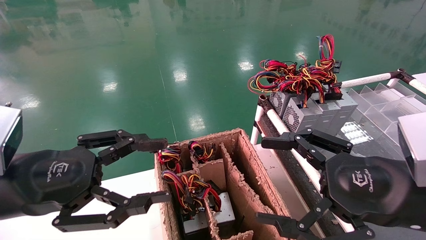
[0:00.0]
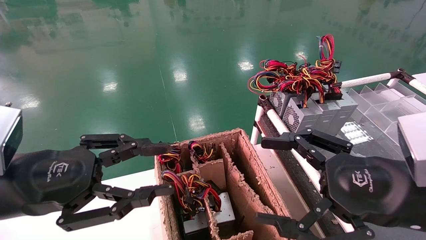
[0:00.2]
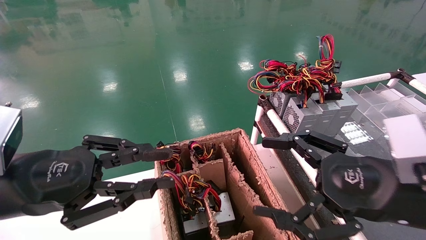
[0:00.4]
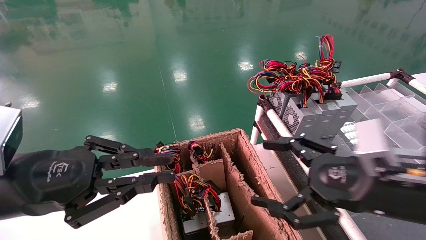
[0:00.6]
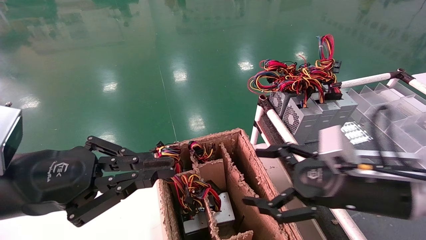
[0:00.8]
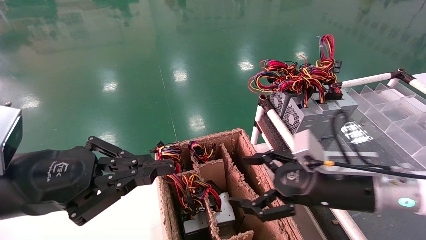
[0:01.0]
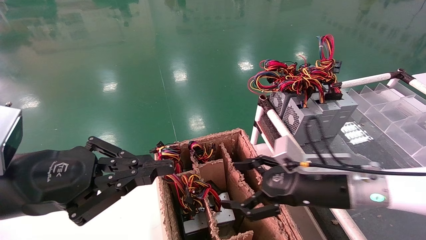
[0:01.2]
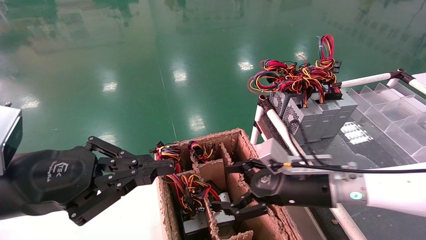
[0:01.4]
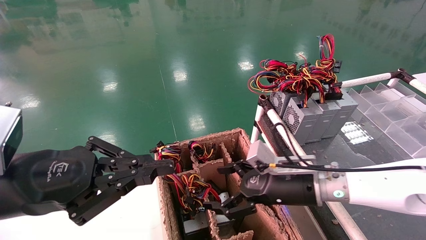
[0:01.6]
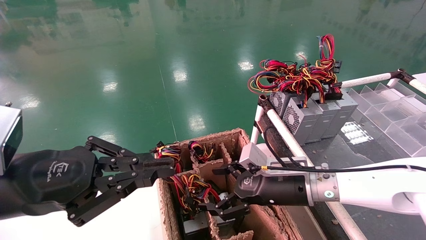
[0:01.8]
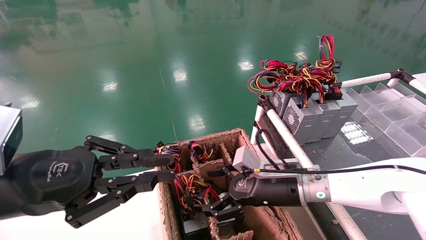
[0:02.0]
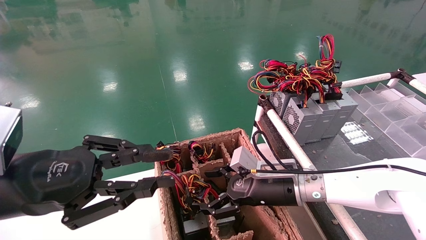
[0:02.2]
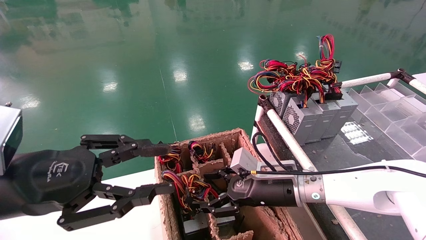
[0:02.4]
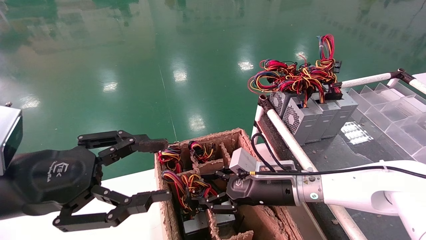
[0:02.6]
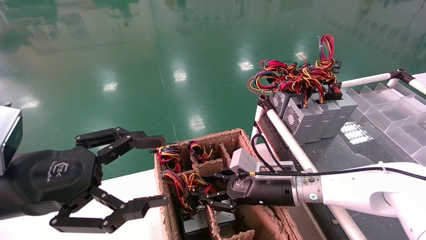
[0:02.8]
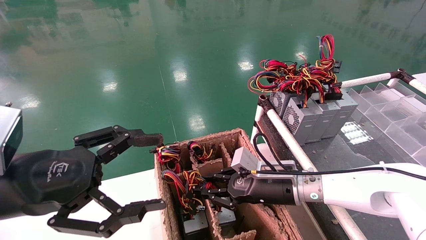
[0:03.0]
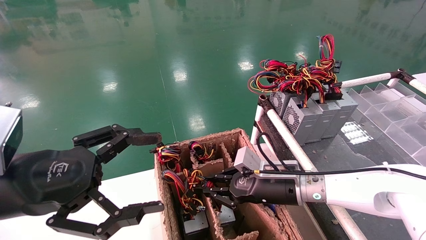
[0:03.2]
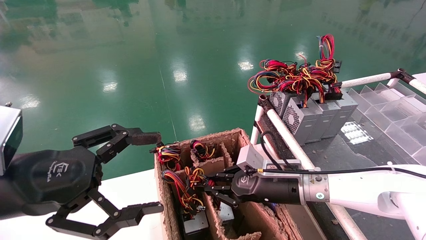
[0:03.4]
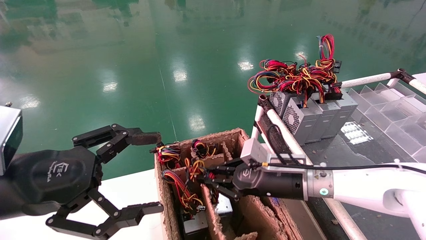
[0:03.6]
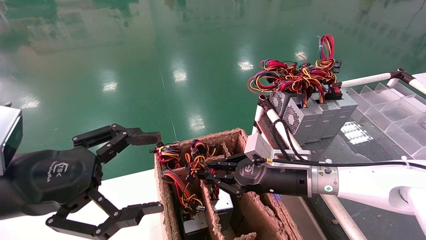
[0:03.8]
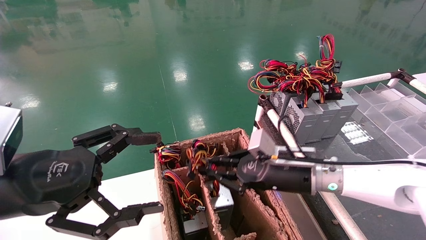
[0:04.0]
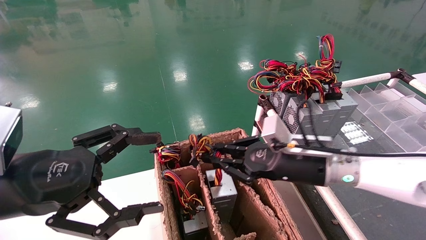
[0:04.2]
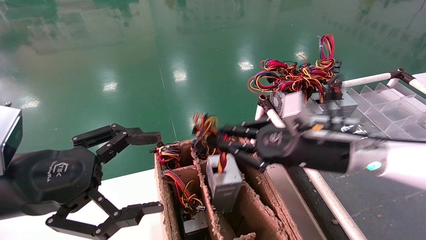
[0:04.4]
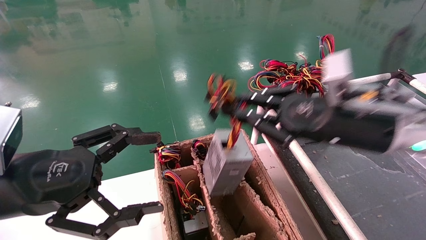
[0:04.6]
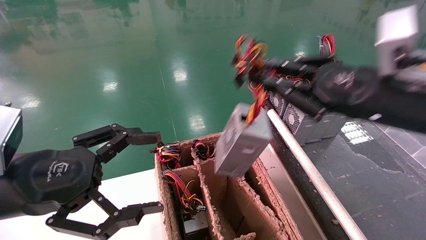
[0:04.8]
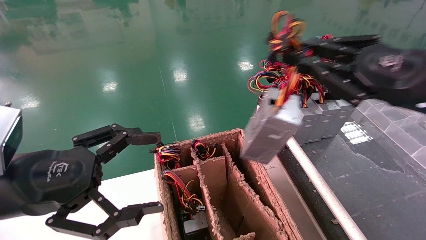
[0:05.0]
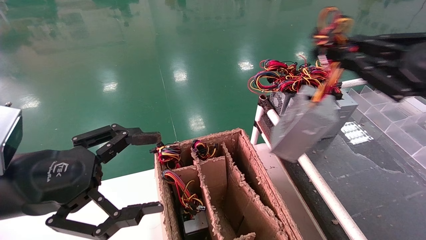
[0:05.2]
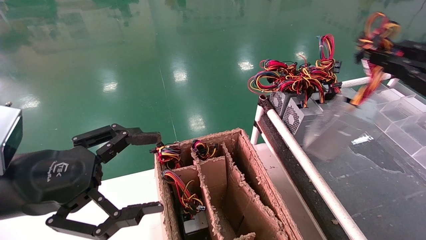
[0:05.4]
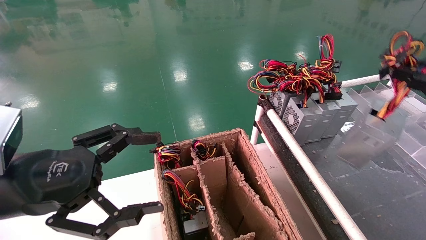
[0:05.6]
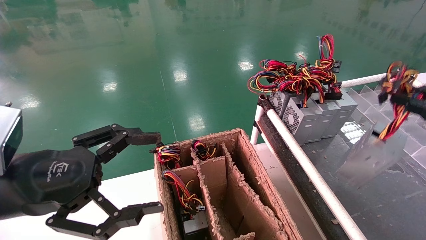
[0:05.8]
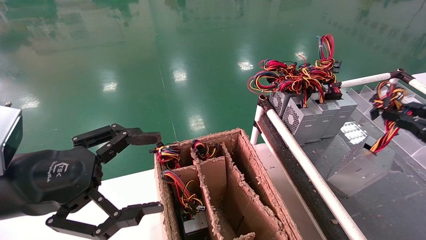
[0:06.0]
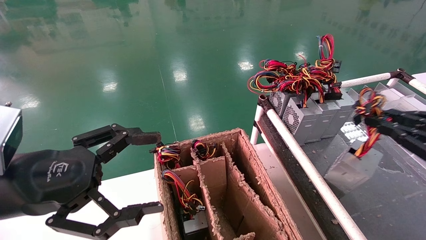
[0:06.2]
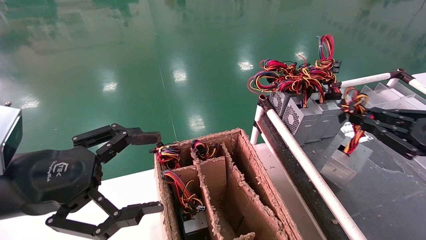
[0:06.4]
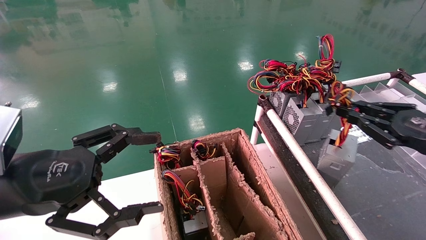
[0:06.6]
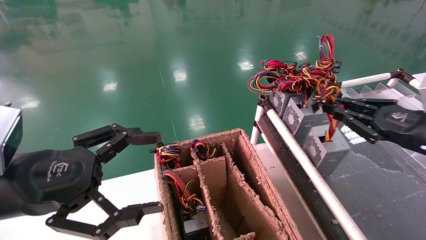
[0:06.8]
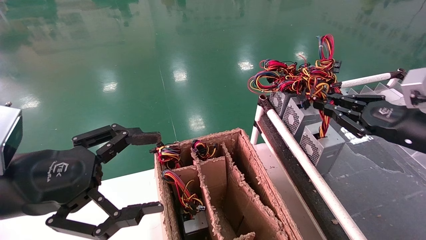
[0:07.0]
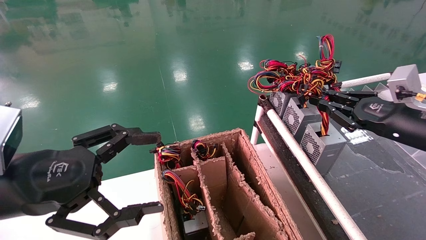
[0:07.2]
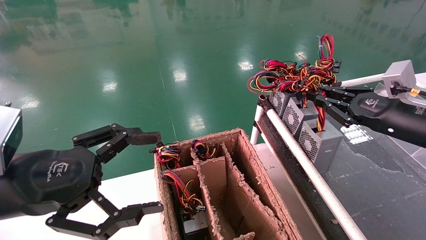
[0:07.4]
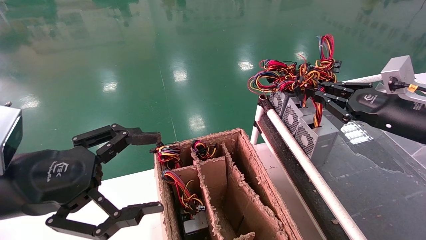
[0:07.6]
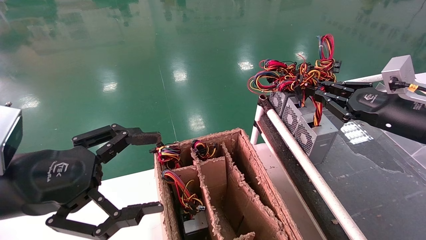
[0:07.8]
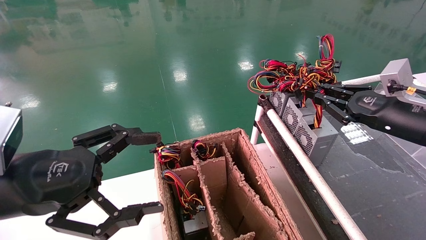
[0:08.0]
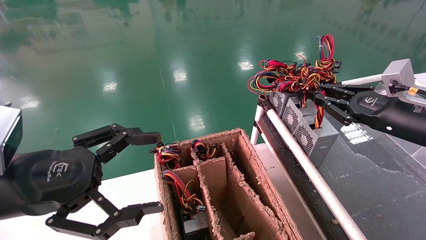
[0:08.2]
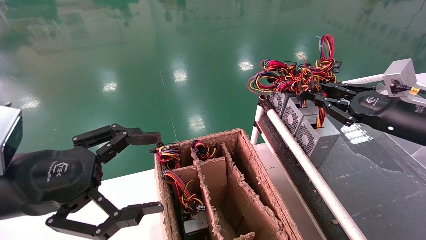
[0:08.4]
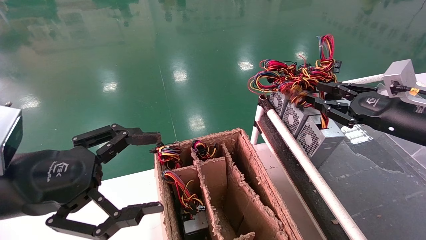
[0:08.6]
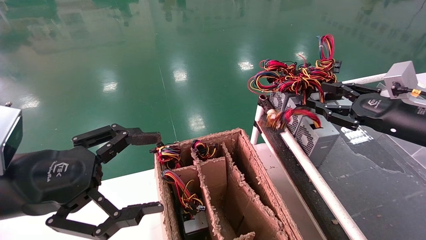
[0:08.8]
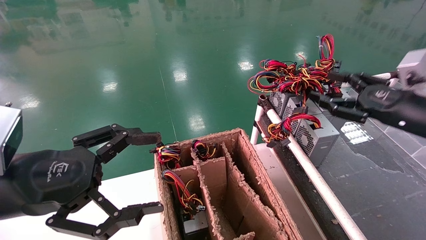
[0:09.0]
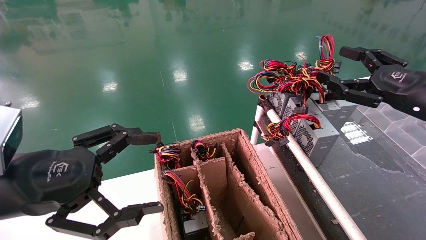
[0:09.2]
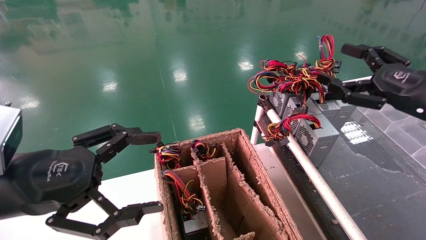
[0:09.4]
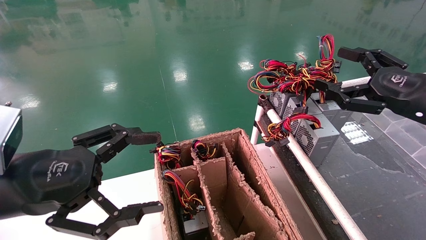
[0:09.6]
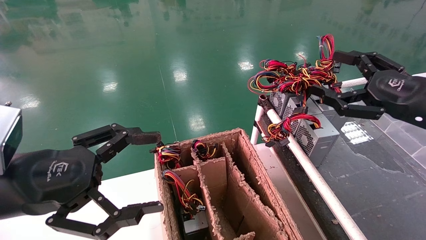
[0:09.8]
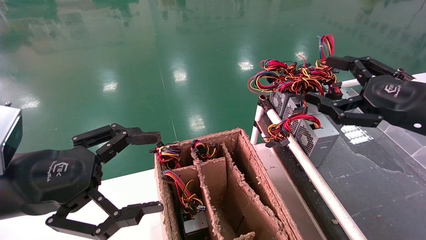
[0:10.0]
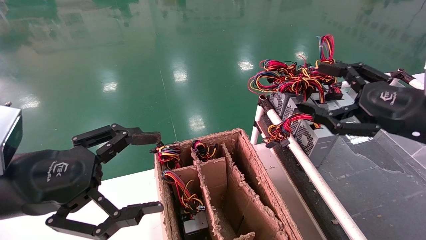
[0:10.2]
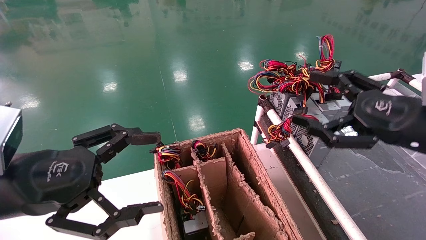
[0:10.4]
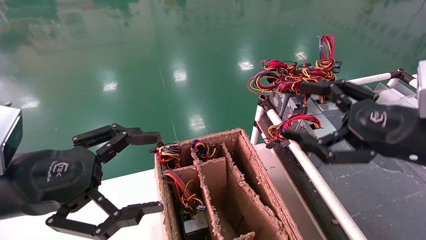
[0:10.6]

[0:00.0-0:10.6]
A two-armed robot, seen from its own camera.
Step, 0:01.0 to 0:03.4: Grab and lift the power supply from the large box.
Step, 0:03.6 to 0:08.4: Place the power supply on the operating table.
0:00.0 to 0:01.6: The right gripper moves forward, downward and to the left, roughly 20 cm, while the left gripper closes its fingers.
0:01.6 to 0:03.0: The left gripper opens, while the right gripper closes up.
0:03.0 to 0:04.6: The right gripper moves upward, to the right and backward, some 20 cm.
0:04.6 to 0:06.0: The right gripper is displaced to the right by some 20 cm.
0:06.0 to 0:07.6: The right gripper heads forward and to the left, covering roughly 15 cm.
0:07.6 to 0:09.0: The right gripper opens its fingers.
0:09.0 to 0:10.6: The right gripper travels backward and to the left by approximately 10 cm, and opens up.

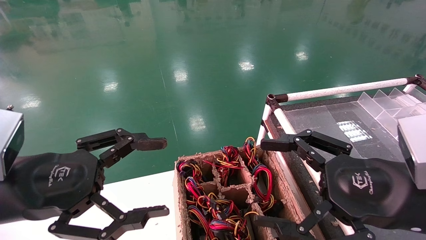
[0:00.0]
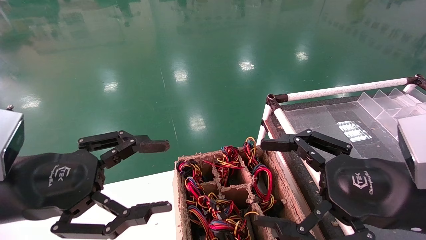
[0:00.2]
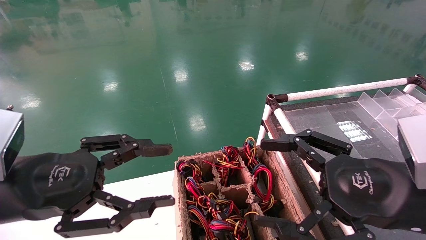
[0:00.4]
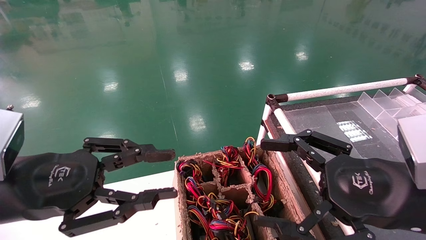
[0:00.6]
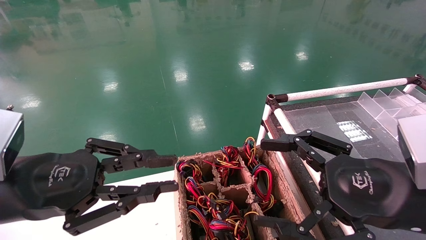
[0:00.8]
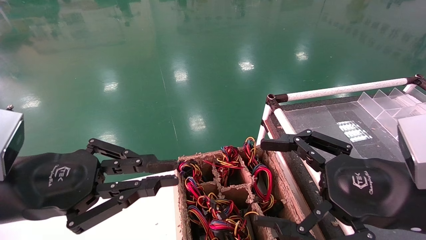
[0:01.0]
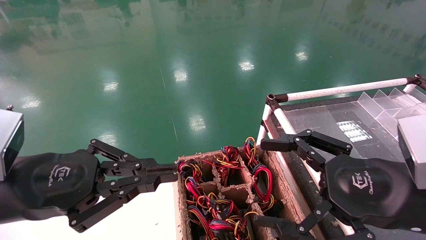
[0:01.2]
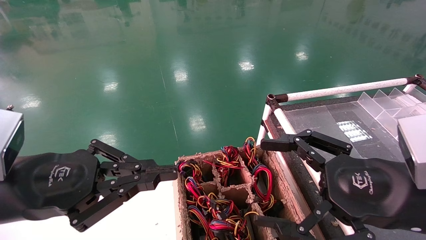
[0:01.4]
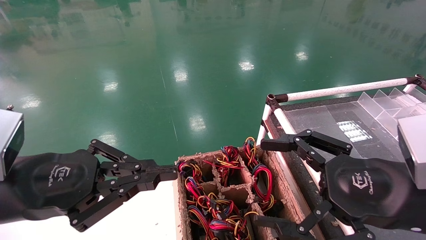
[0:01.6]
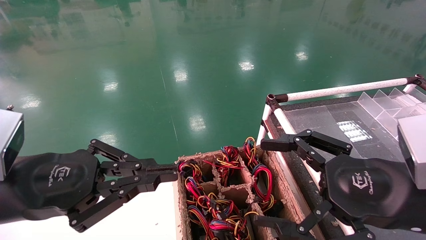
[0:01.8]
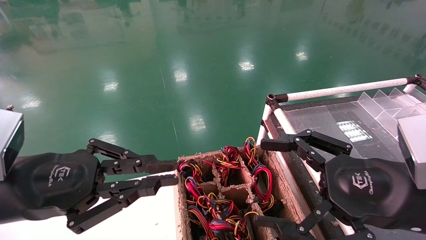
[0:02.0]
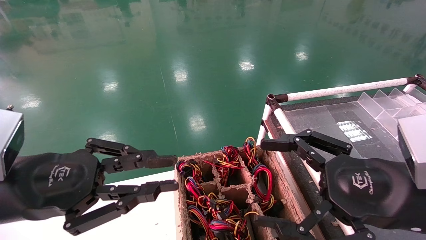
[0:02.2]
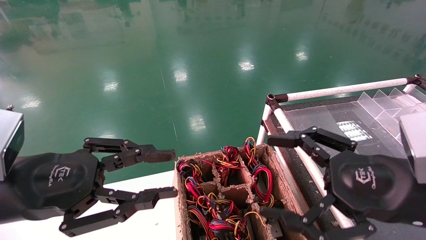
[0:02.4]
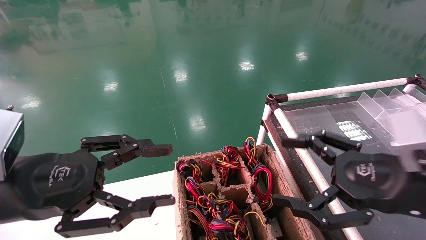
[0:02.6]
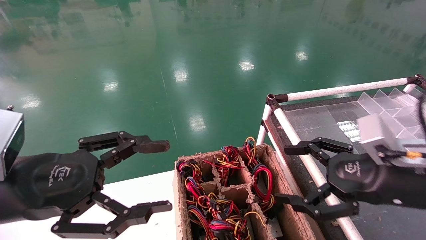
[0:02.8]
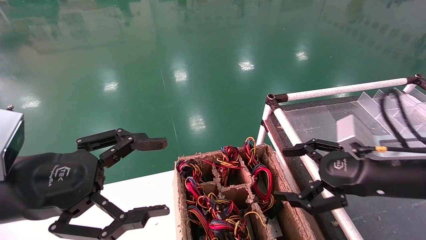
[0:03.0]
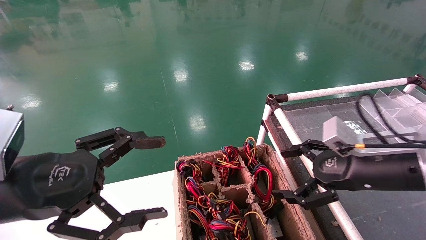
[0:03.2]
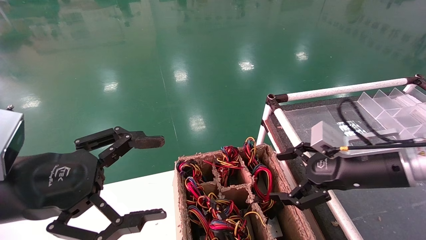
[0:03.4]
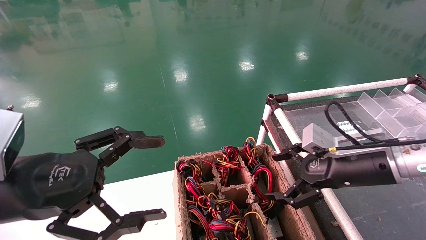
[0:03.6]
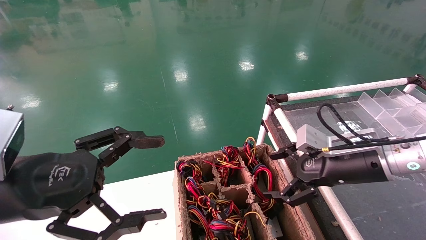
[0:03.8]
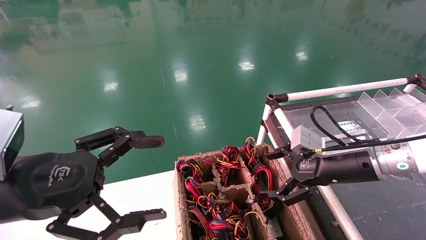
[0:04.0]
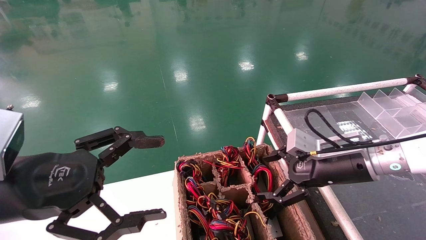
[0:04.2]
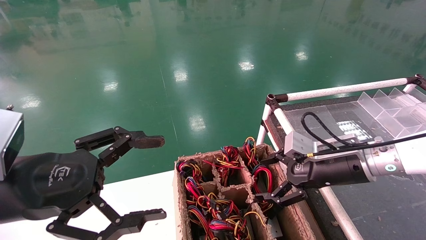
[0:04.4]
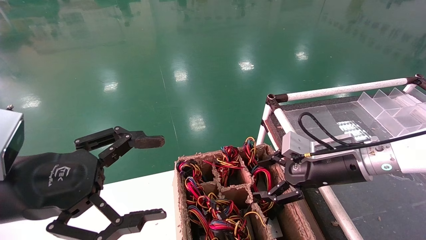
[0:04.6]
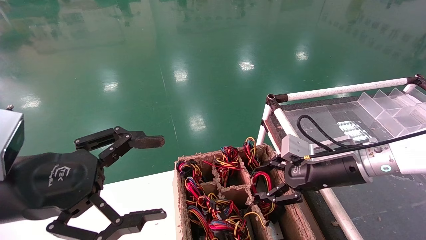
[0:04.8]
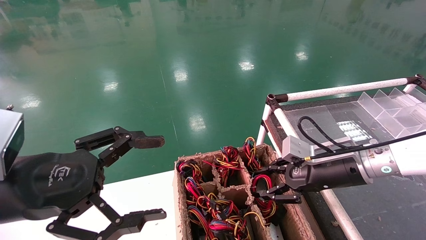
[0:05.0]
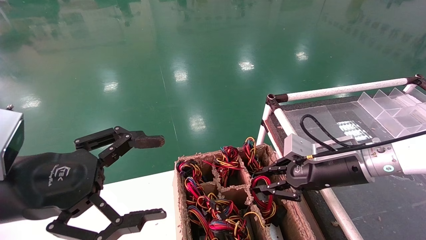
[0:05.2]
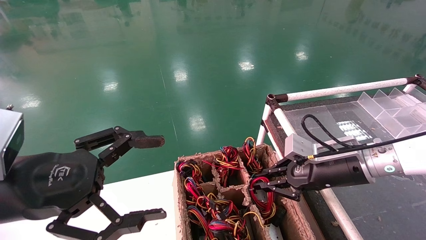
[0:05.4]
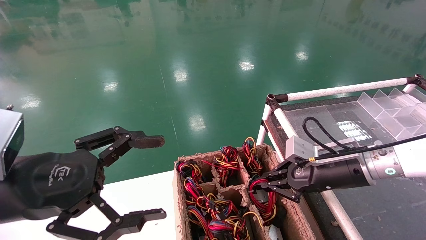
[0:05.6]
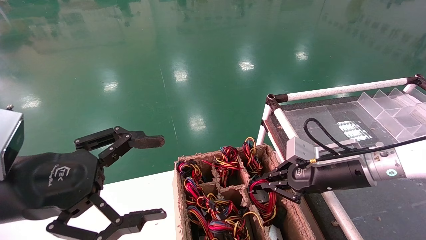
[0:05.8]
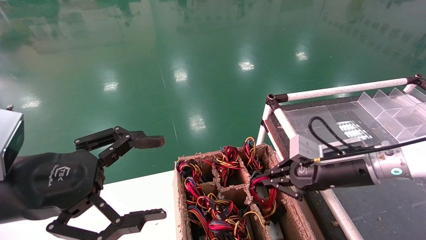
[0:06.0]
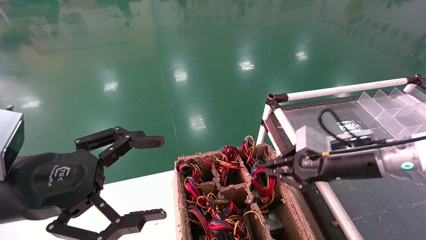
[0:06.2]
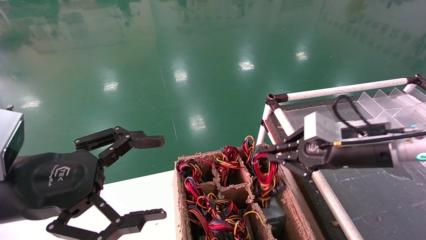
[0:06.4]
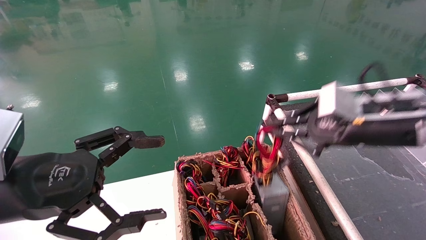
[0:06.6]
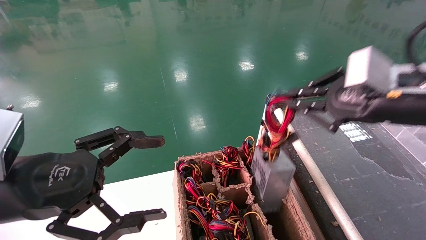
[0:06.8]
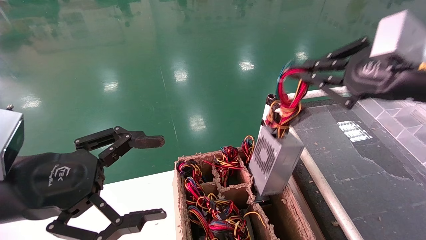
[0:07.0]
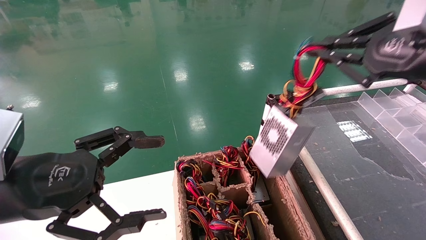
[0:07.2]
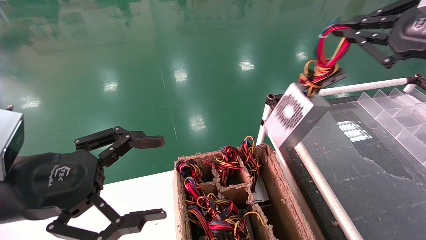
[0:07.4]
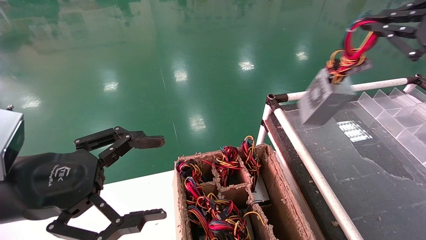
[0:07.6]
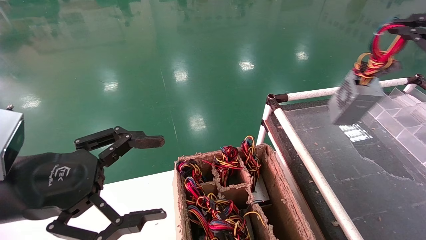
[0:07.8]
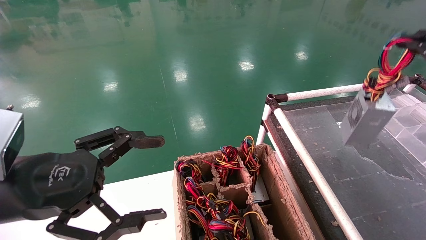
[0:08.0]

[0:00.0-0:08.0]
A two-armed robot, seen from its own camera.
Step, 0:01.4 to 0:06.6: Grab and lift the power supply from the large box.
0:00.0 to 0:01.6: The left gripper closes its fingers.
0:01.6 to 0:03.2: The left gripper opens up. Meanwhile the right gripper goes approximately 10 cm forward.
0:03.2 to 0:04.8: The right gripper goes roughly 5 cm forward.
0:04.8 to 0:06.4: The right gripper travels upward by approximately 5 cm, and closes up.
0:06.4 to 0:08.0: The right gripper moves to the right and upward, roughly 20 cm.
